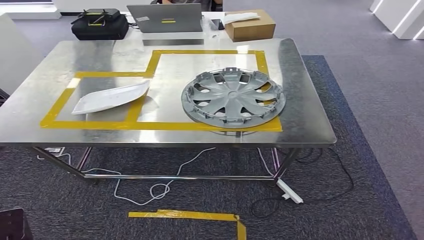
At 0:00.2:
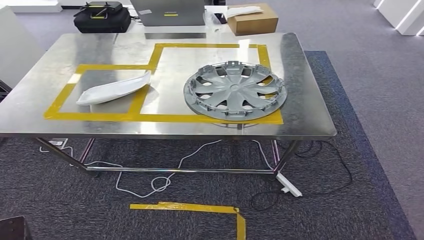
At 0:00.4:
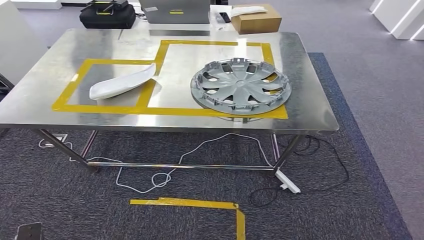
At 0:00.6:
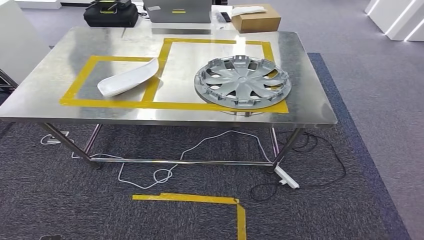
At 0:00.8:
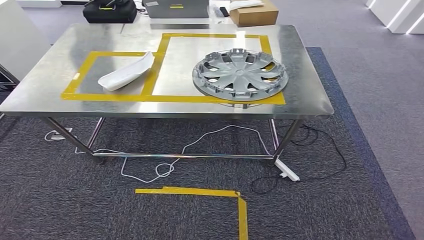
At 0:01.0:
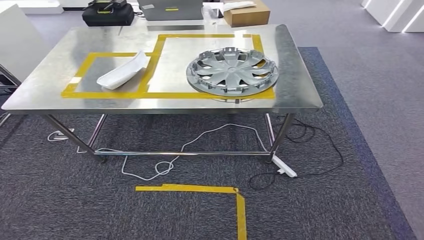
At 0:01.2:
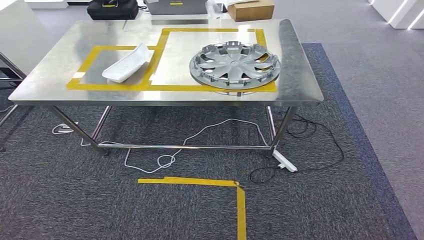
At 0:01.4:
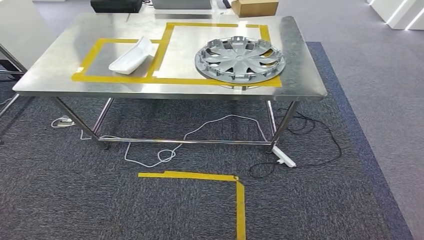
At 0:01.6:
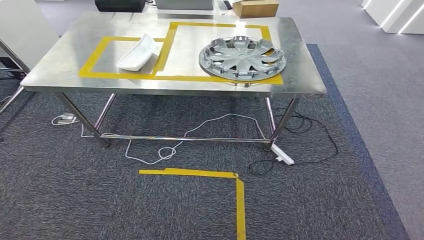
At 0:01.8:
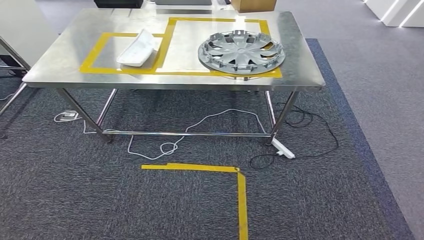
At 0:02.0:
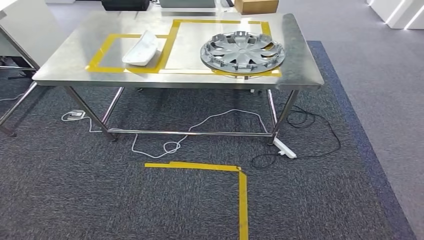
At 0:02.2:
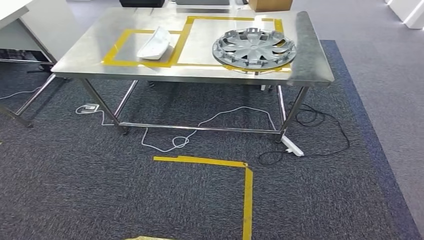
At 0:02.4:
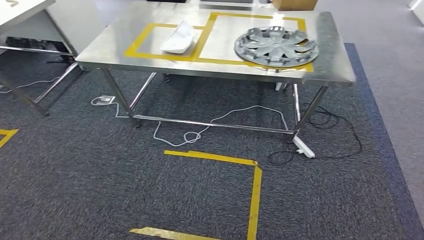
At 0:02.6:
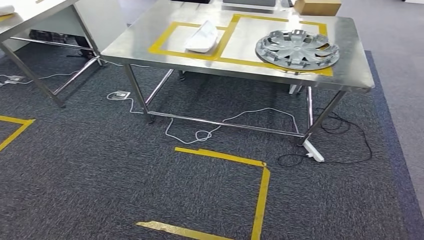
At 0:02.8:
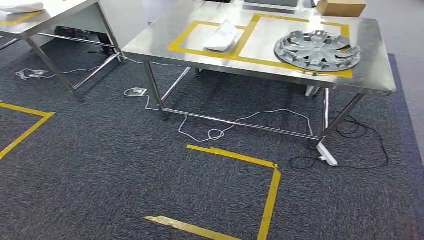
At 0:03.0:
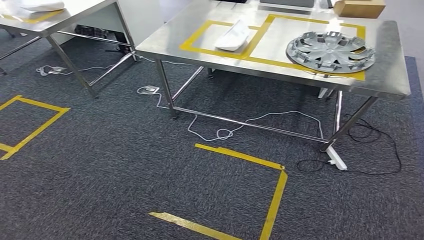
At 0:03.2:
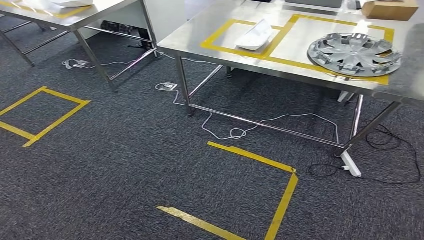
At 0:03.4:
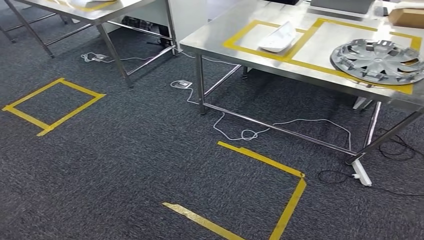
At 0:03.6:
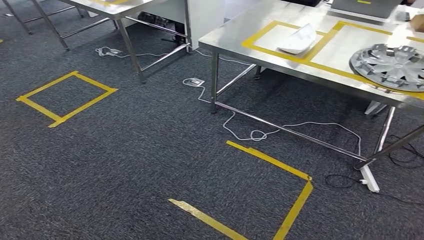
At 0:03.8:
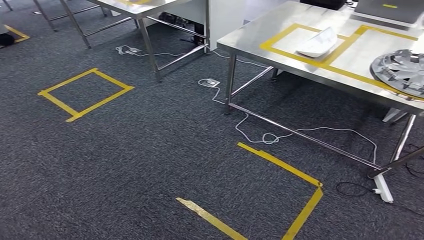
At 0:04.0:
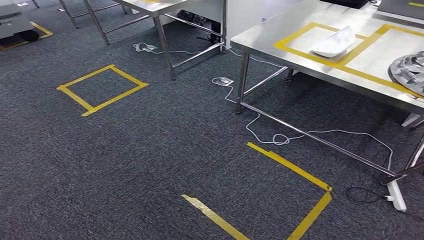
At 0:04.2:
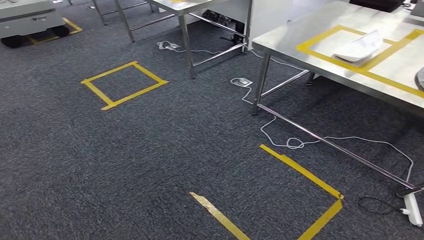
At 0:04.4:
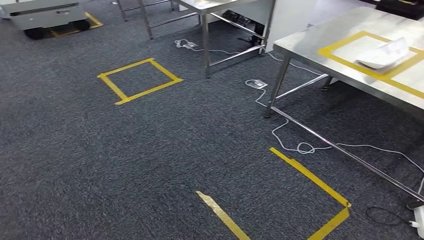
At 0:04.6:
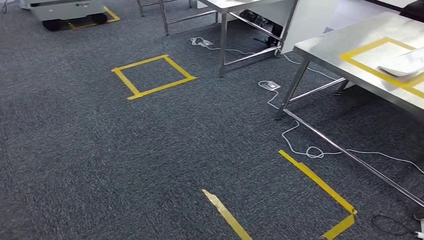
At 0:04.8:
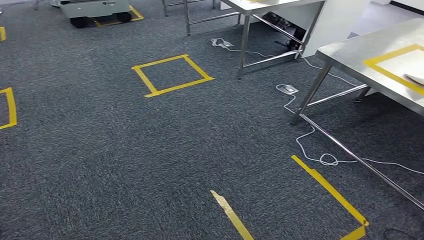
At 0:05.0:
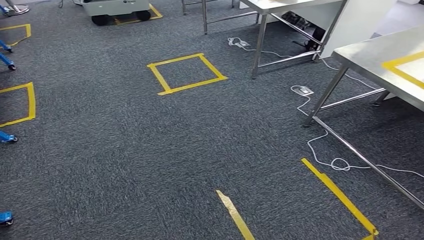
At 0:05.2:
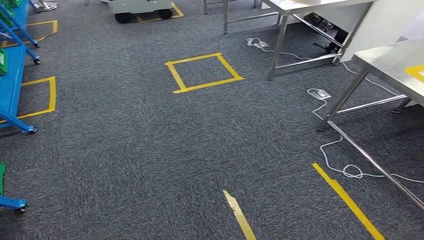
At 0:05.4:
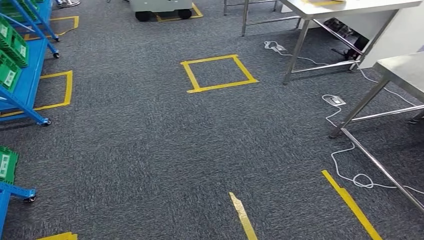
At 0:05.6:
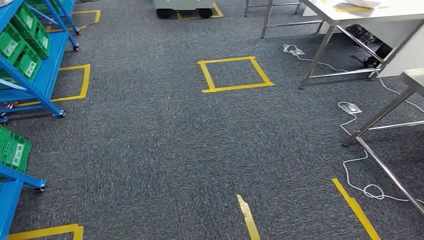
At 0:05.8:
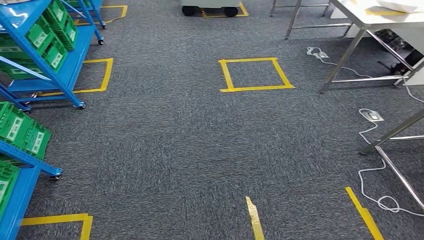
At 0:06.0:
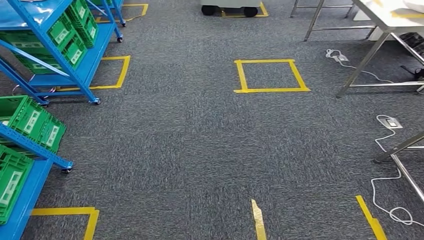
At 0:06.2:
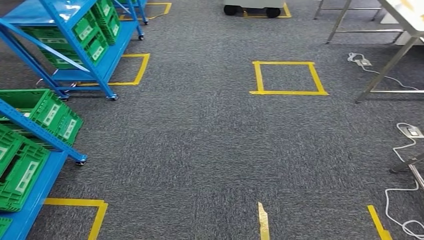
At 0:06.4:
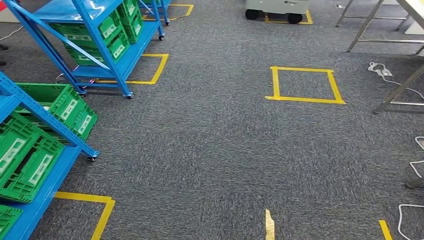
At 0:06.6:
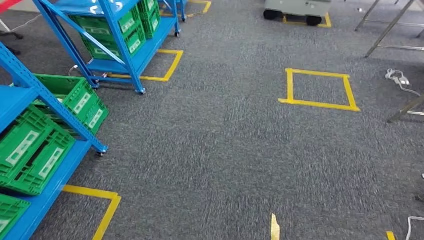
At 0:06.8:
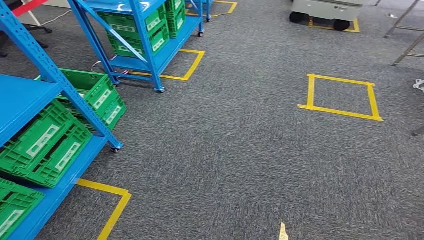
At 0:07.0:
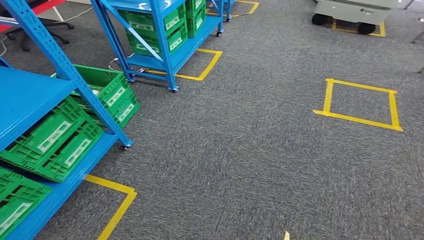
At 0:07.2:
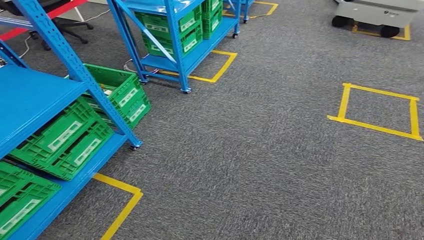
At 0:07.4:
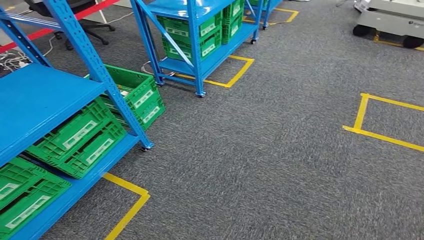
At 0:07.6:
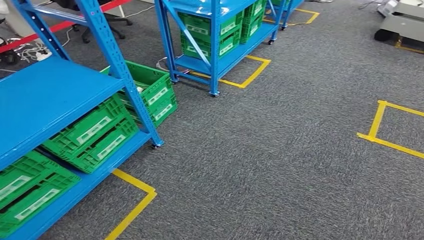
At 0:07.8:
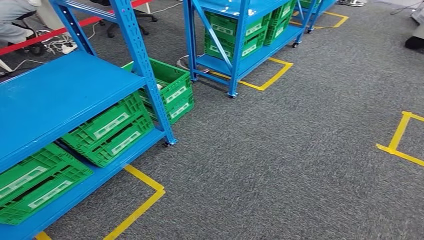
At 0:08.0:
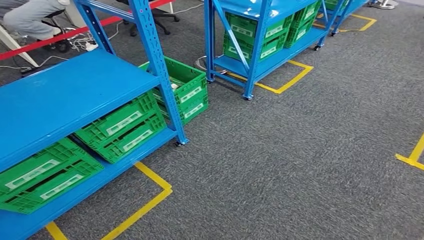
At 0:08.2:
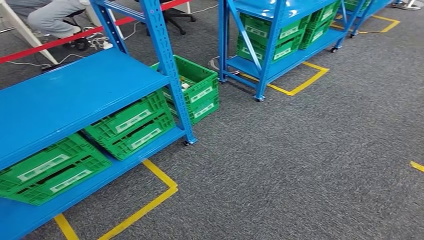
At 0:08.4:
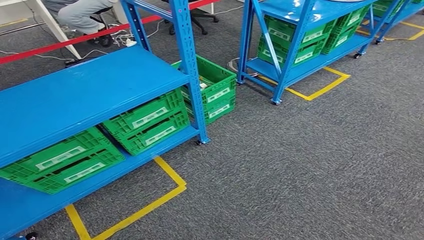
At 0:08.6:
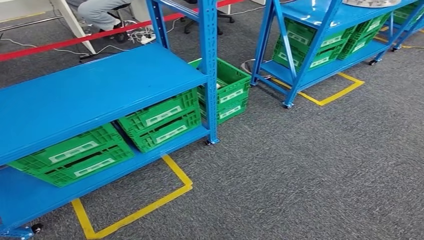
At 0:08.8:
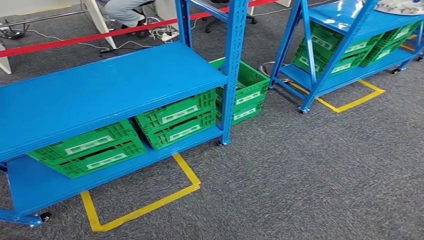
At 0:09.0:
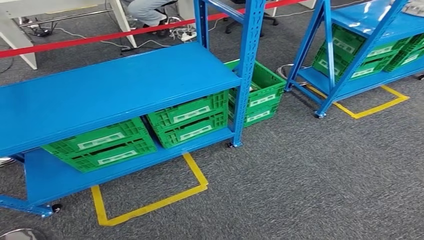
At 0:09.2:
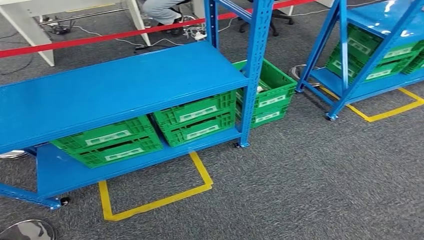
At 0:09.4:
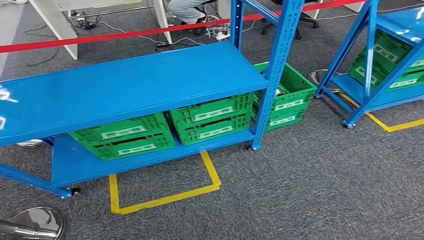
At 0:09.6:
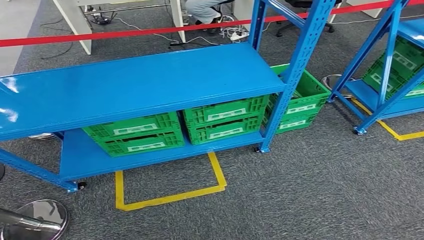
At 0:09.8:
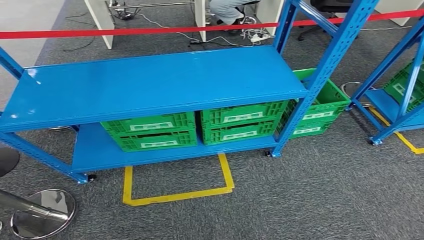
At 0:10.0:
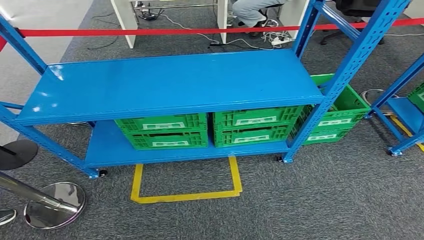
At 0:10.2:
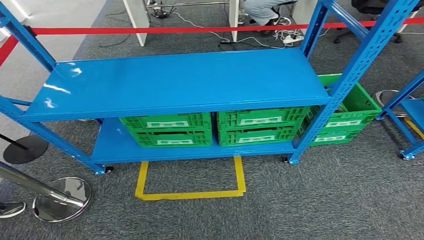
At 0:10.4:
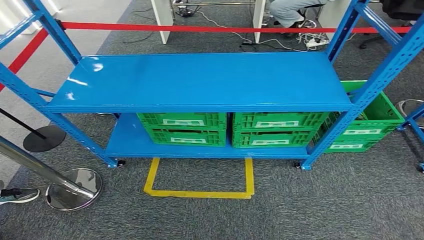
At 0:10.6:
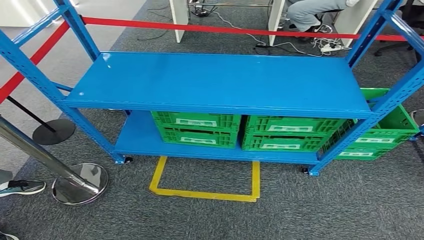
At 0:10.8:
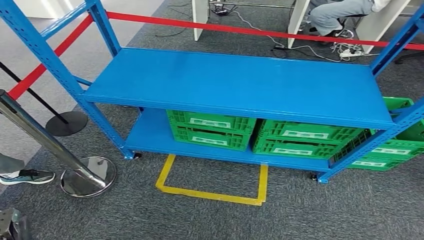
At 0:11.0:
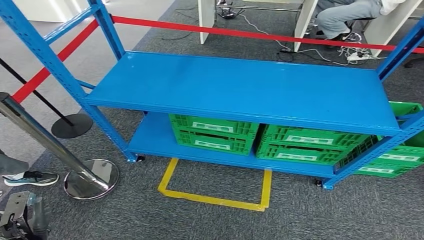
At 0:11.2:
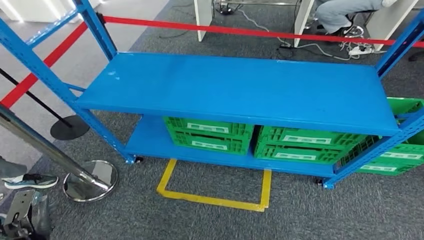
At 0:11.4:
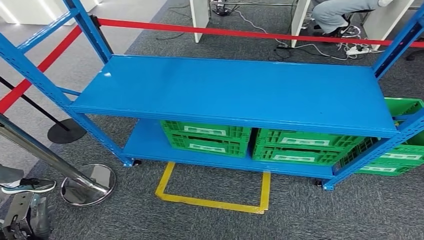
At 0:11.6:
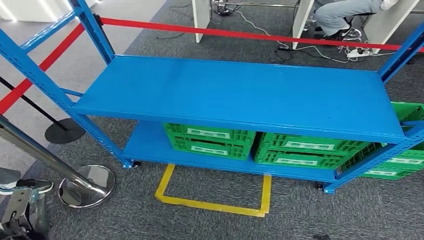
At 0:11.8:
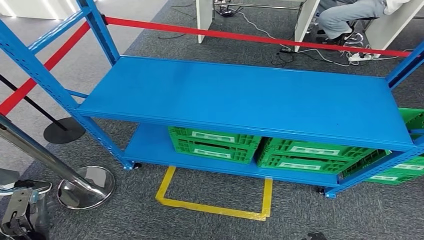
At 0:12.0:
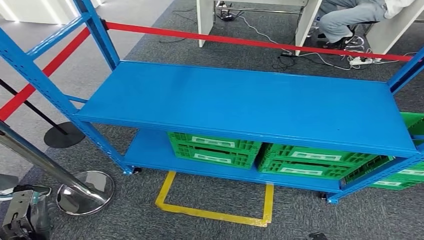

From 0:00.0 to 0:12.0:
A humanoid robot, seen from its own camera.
Step, from 0:00.0 to 0:06.0: Insert the small component into the corresponding slot on the workbench.

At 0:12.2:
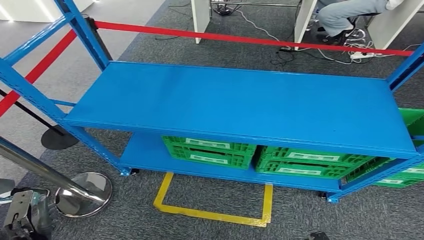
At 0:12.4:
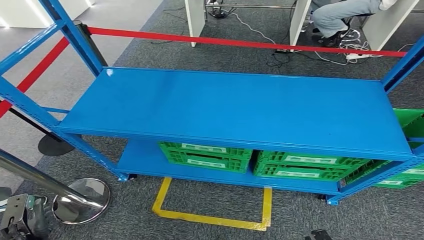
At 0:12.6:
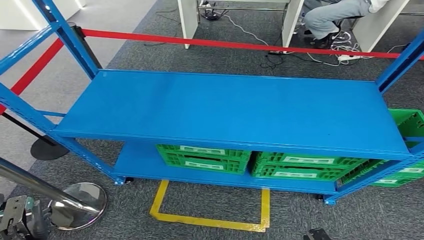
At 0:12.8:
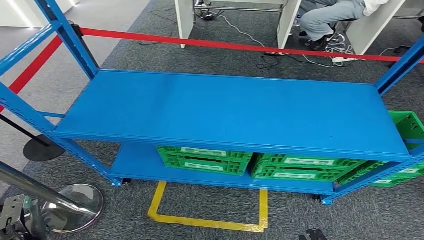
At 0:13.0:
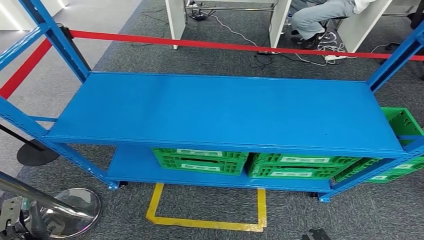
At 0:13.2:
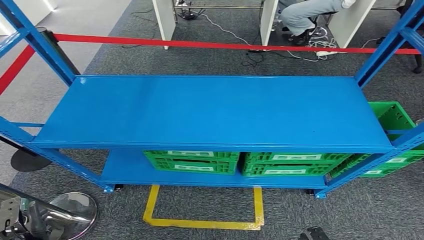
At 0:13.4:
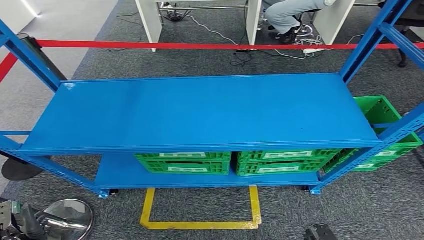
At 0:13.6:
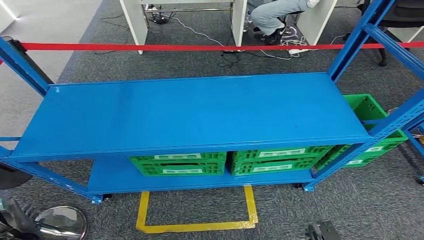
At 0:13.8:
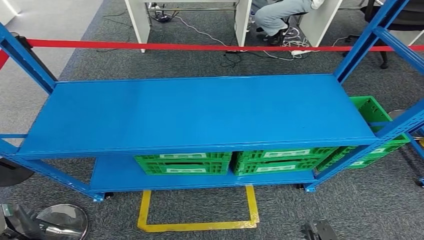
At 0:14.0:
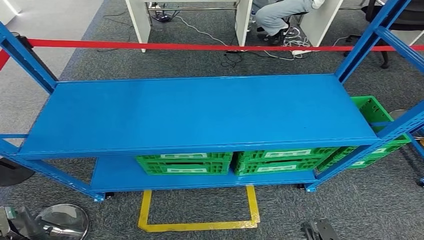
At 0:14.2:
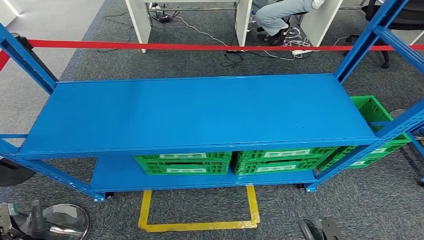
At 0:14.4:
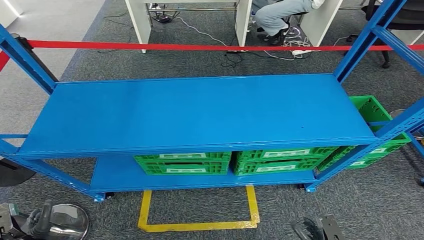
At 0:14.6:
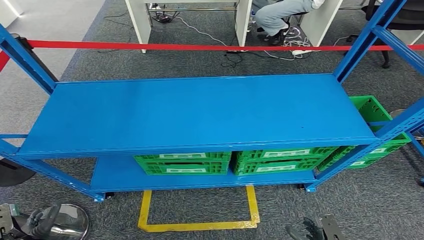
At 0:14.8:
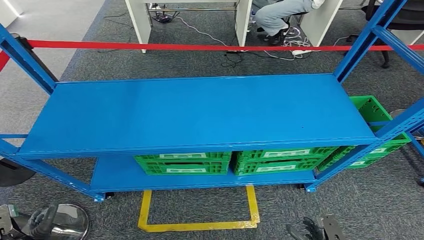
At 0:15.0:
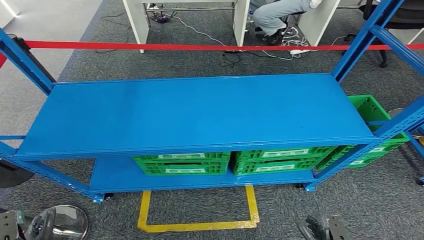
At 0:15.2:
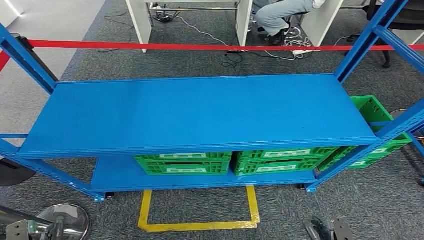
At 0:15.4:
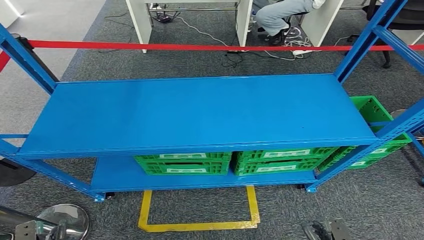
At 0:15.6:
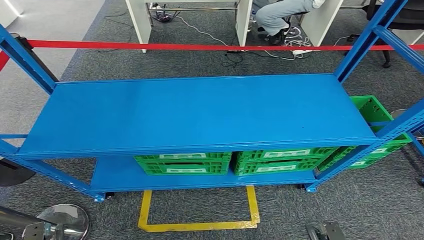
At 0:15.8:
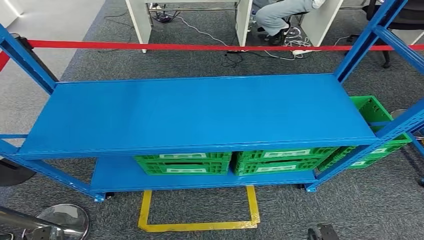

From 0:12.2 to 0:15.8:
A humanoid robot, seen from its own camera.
Step, from 0:12.2 to 0:15.6: Move to the initial position of the workbench.
From 0:14.0 to 0:15.8: The left hand moves downward and backward, roughly 10 cm.
